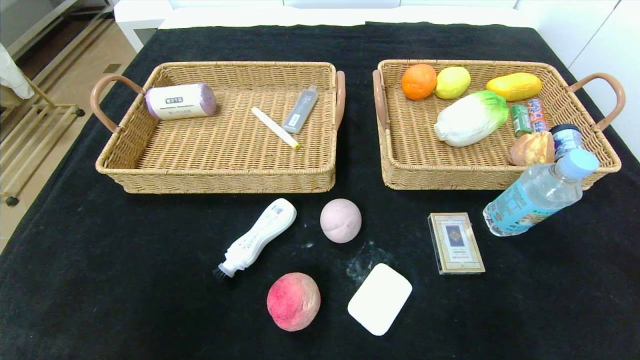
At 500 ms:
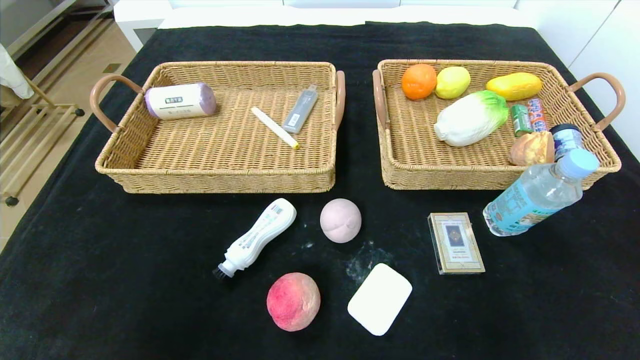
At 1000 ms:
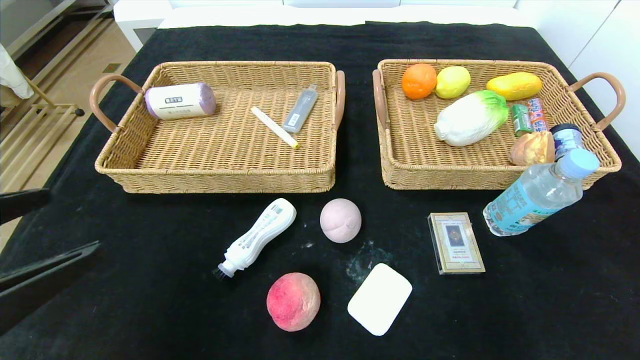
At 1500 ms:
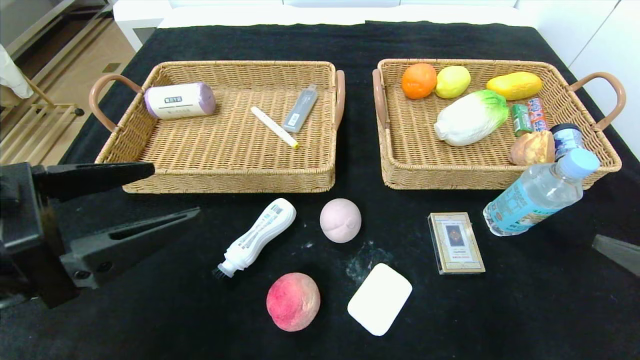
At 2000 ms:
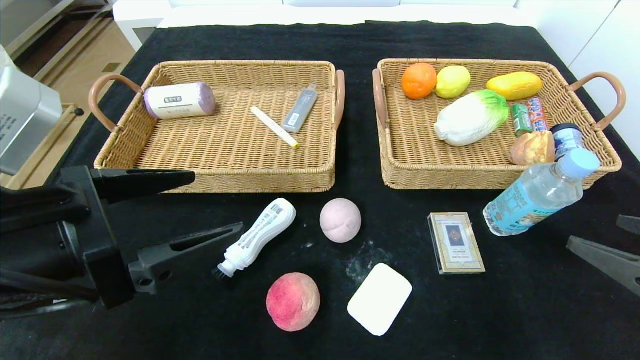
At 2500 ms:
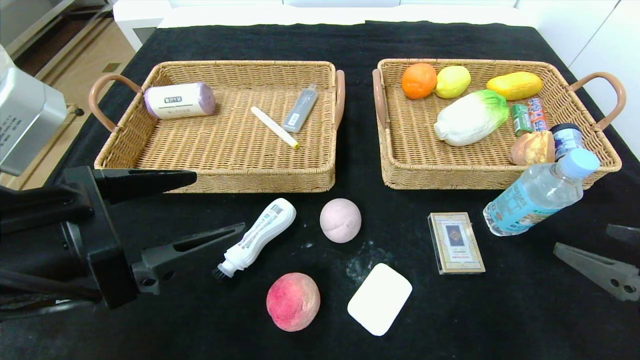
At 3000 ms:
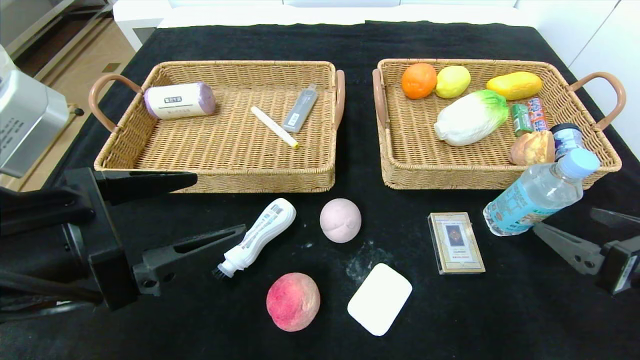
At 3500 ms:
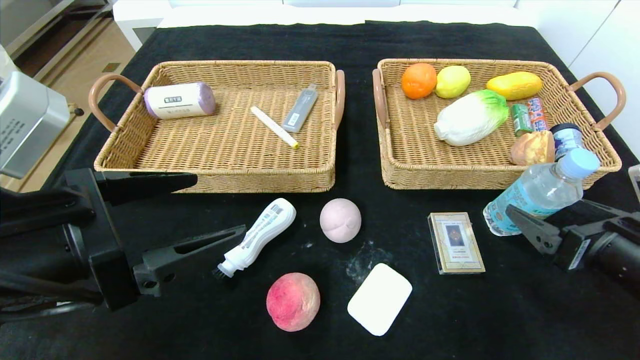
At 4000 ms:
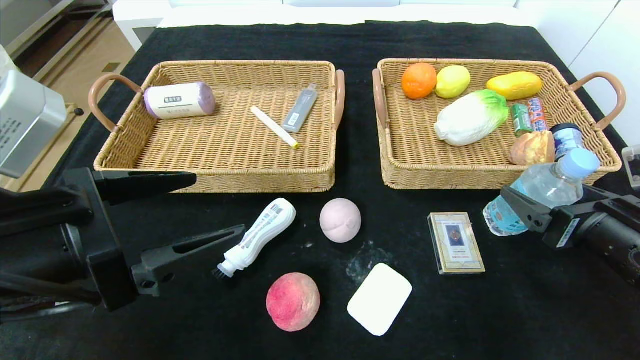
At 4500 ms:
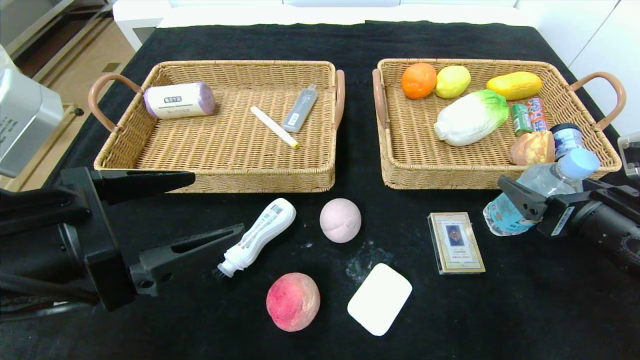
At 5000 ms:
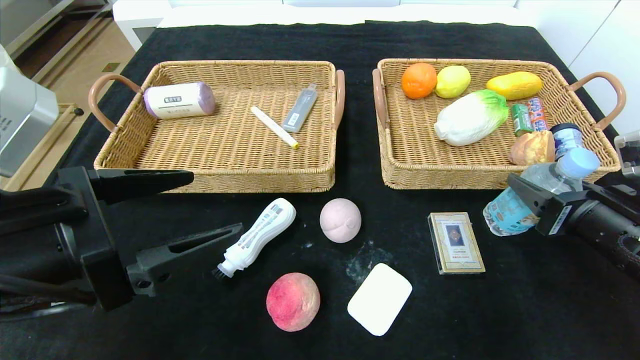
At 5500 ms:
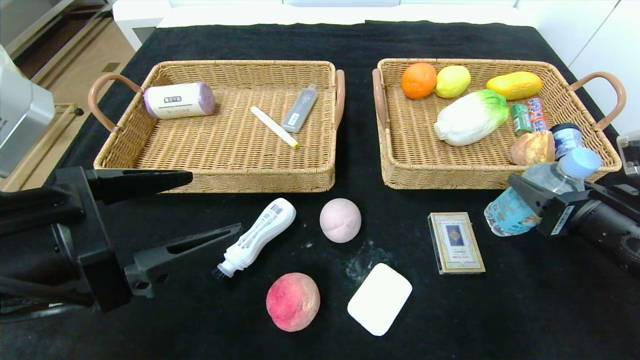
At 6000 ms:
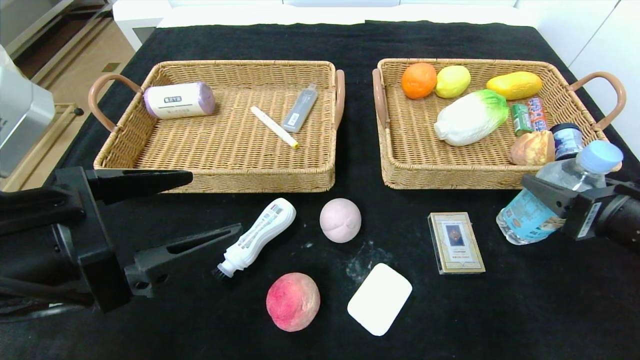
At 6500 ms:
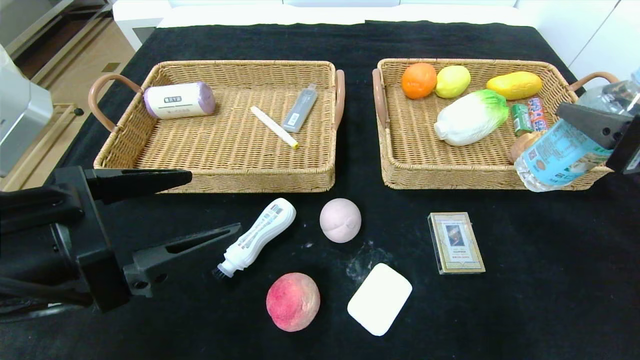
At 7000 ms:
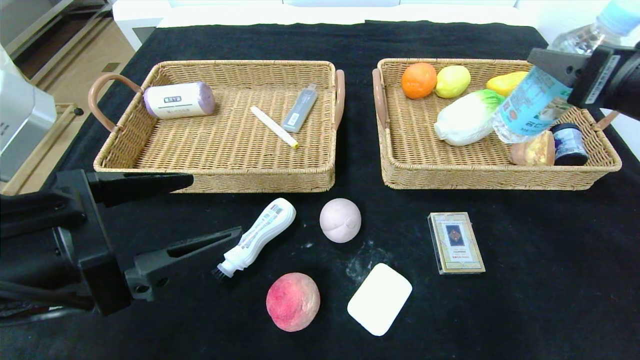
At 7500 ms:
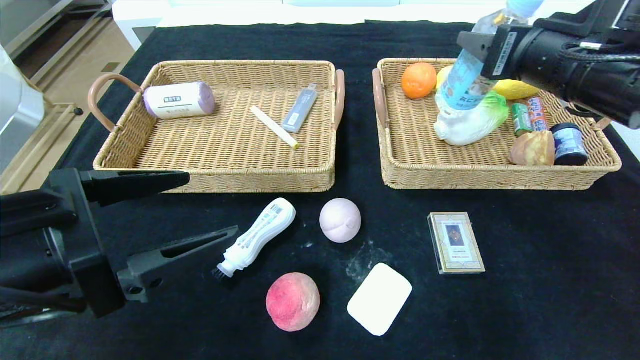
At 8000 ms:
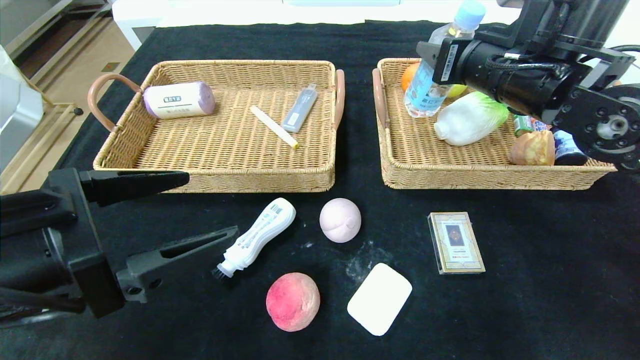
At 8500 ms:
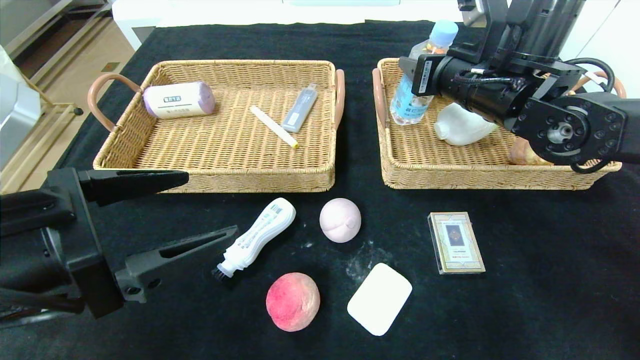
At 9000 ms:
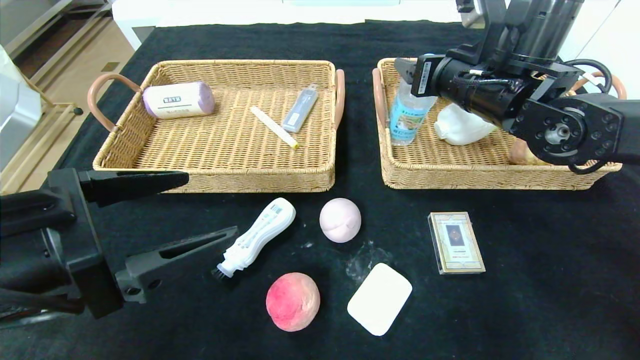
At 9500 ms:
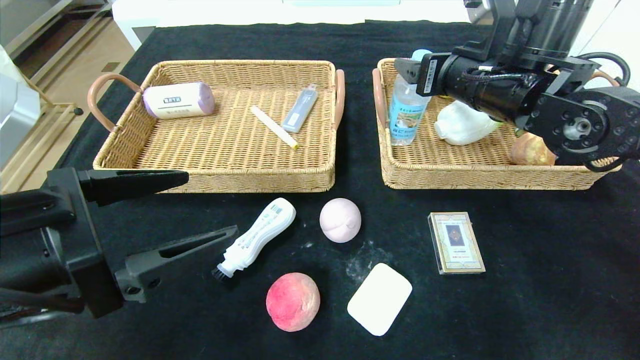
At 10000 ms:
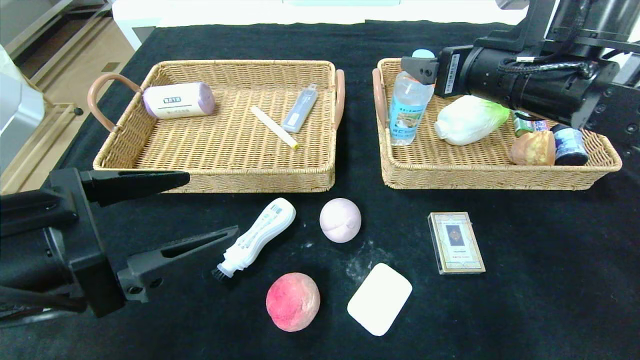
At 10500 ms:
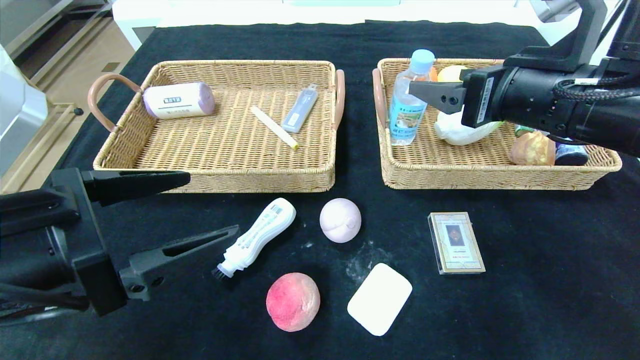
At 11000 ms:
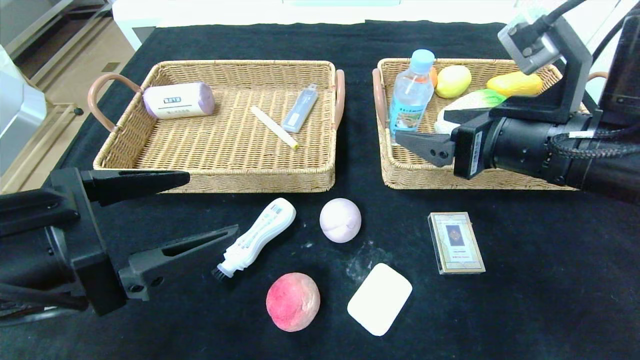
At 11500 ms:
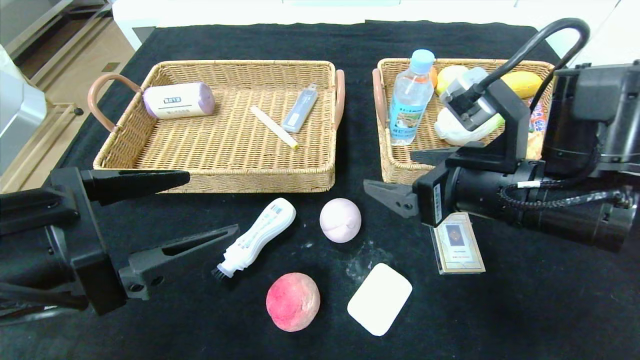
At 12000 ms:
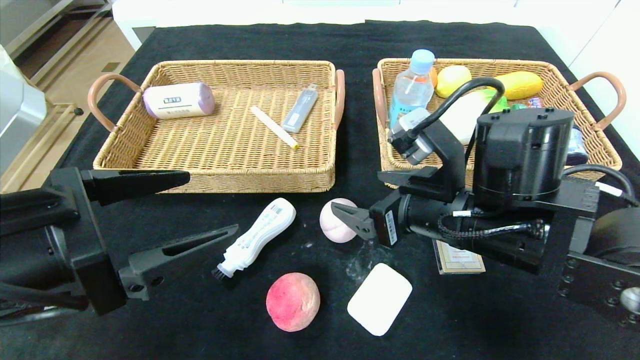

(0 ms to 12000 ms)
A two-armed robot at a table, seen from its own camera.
Step, 0 ms - 9000 ms: Grasp the soda water and put it in the right basket.
0 ms - 2000 ms: The right gripper is displaced forward by approximately 15 cm; the left gripper goes some 20 cm forward, to the right and upward.
2000 ms - 4000 ms: The right gripper is displaced forward by roughly 10 cm.
4000 ms - 6000 ms: The right gripper closes its fingers.
6000 ms - 8000 ms: The right gripper is displaced forward, upward and to the left by roughly 20 cm.
8000 ms - 10000 ms: The right gripper opens its fingers.
10000 ms - 12000 ms: The right gripper is displaced downward, backward and to the left by some 15 cm.

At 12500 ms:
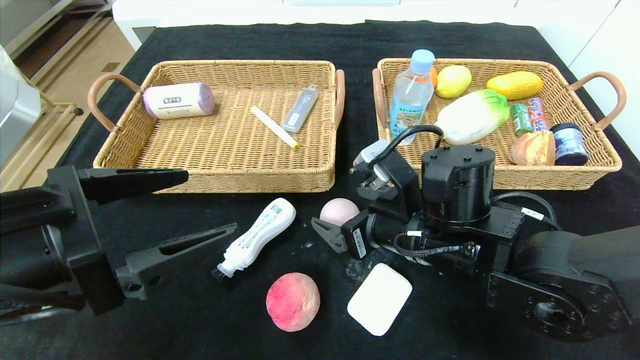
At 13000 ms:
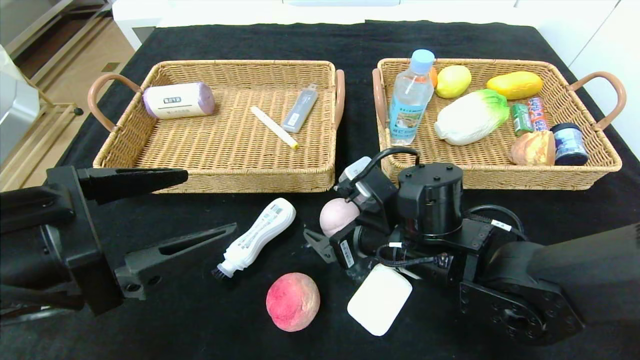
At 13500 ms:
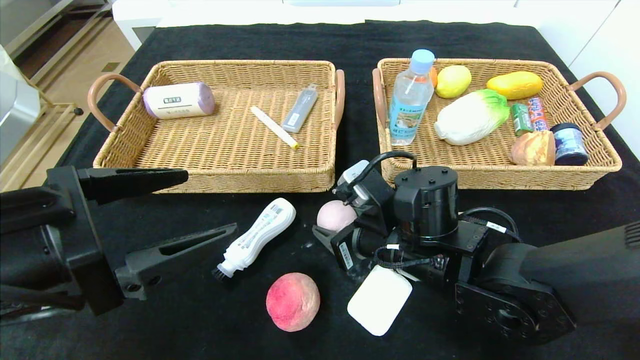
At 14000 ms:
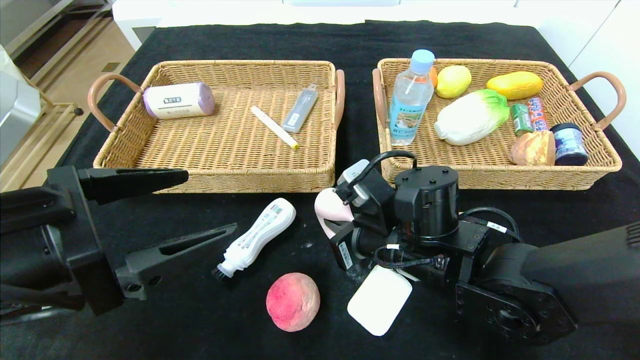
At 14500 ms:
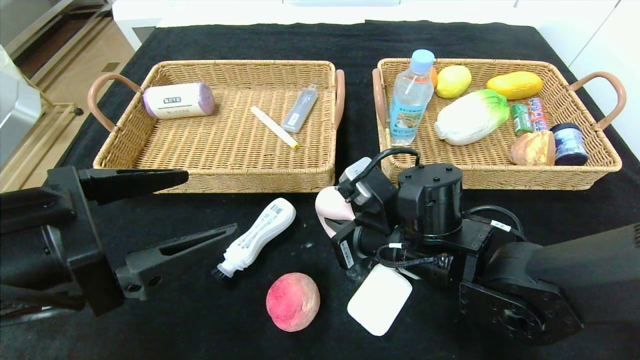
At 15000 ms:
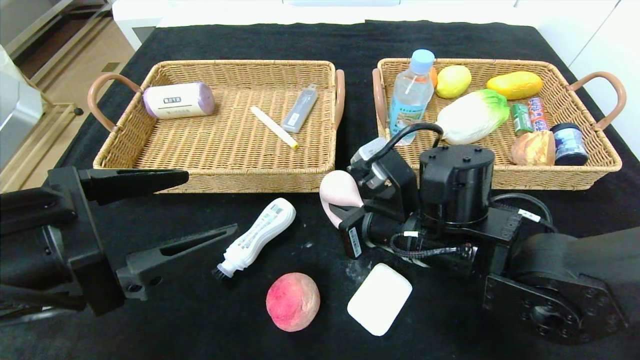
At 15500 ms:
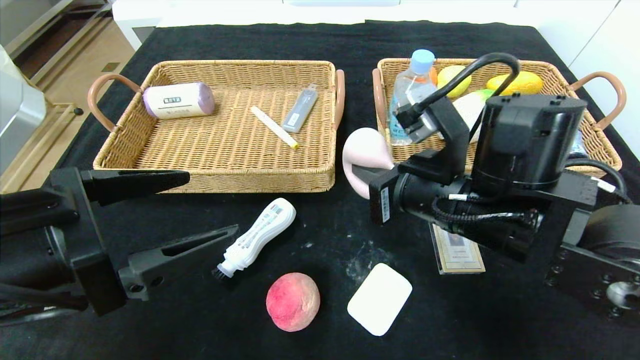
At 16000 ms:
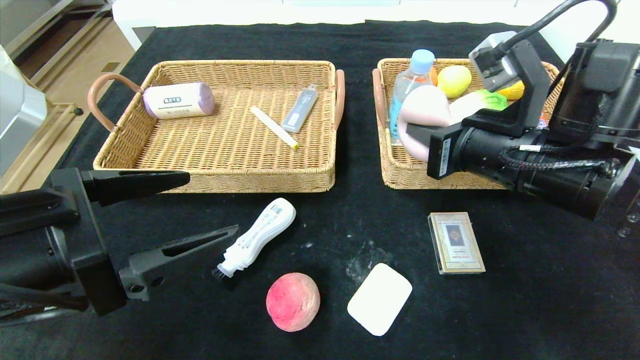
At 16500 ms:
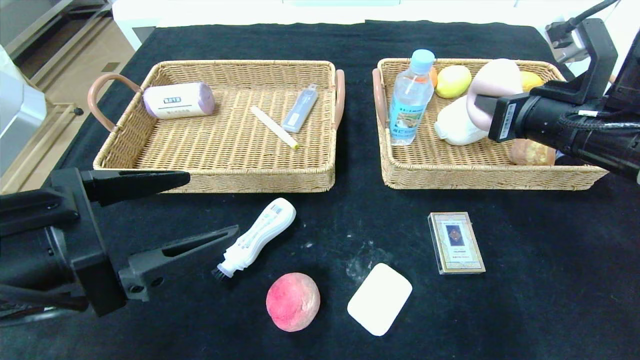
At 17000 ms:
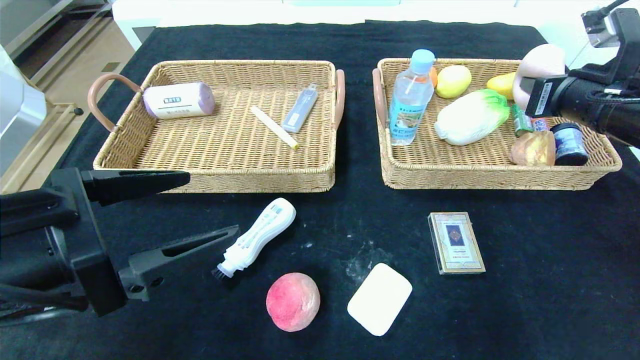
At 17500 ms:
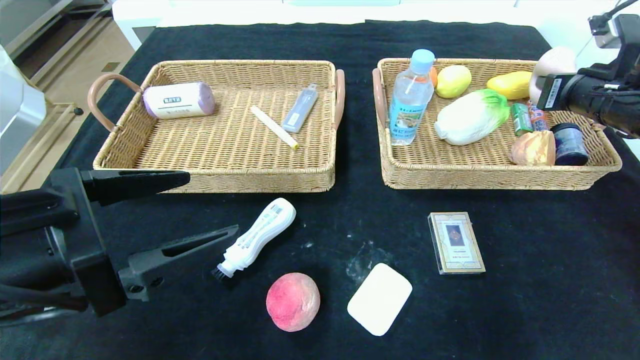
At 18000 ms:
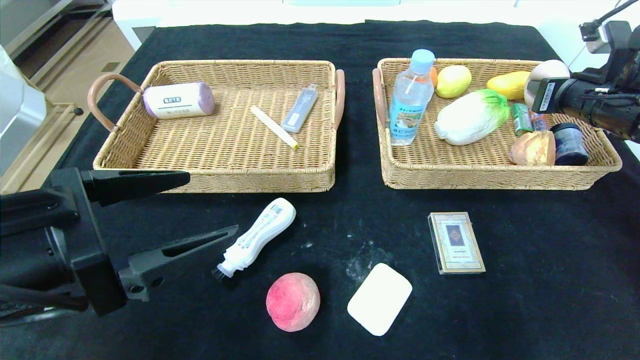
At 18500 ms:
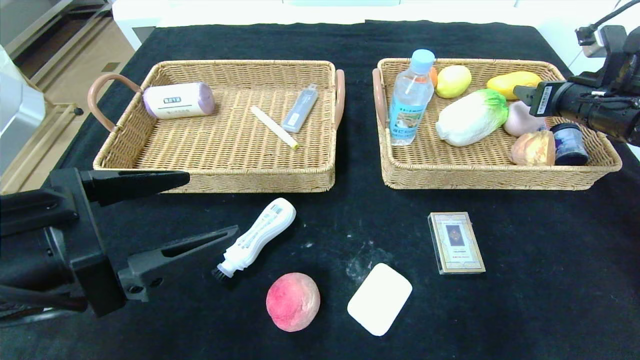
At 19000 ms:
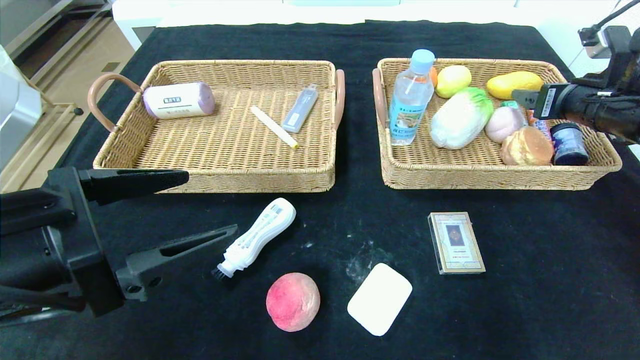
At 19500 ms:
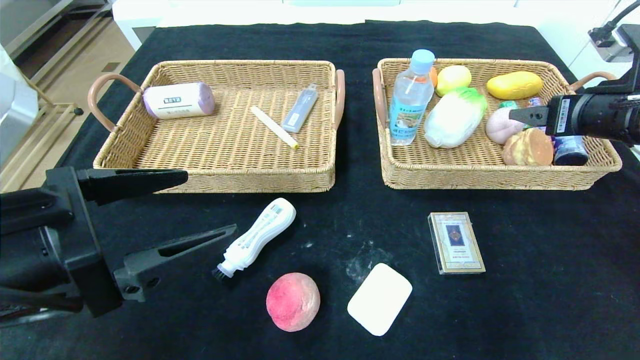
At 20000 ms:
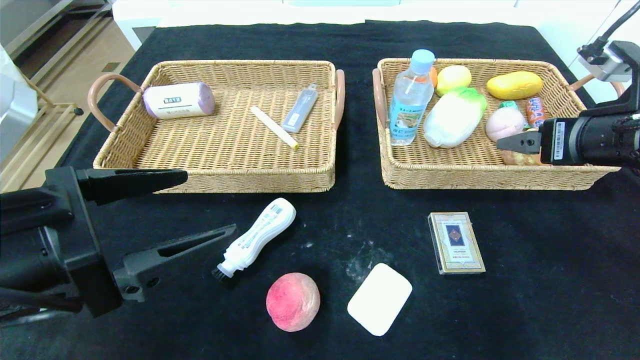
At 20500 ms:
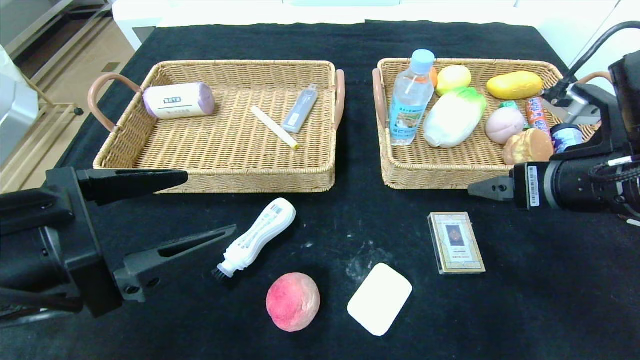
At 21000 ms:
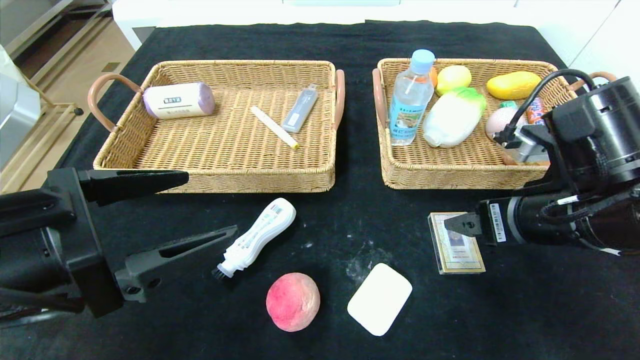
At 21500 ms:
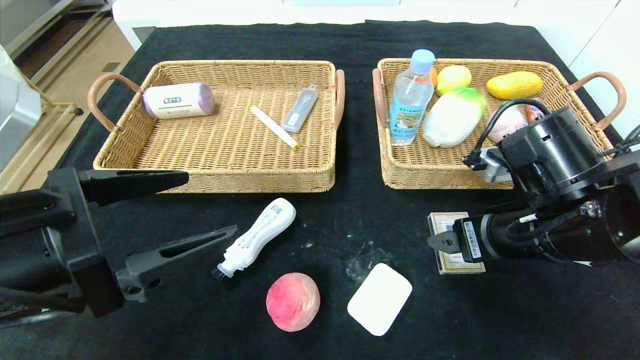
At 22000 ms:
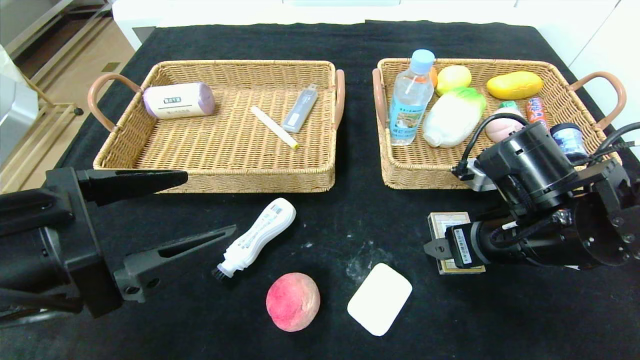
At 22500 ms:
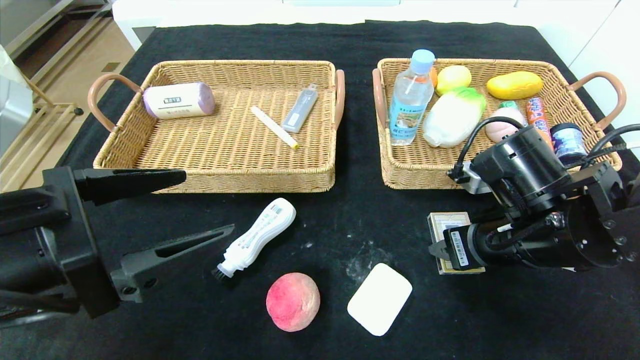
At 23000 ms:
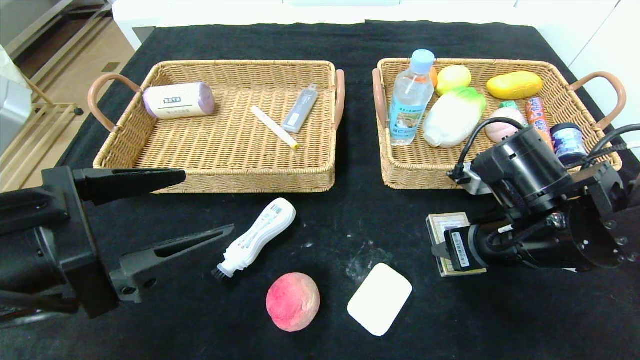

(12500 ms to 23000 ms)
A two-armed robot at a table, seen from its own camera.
Step, 12500 ms - 18500 ms: Grasp the peach and put it in the right basket.
12500 ms - 14500 ms: The right gripper closes its fingers.
14500 ms - 16500 ms: The right gripper is displaced to the right and upward by some 20 cm.
16500 ms - 19000 ms: The right gripper goes approximately 10 cm to the right and forward, and opens its fingers.
19000 ms - 21000 ms: The right gripper heads backward and to the left, covering roughly 20 cm.
21000 ms - 23000 ms: The right gripper closes its fingers.
